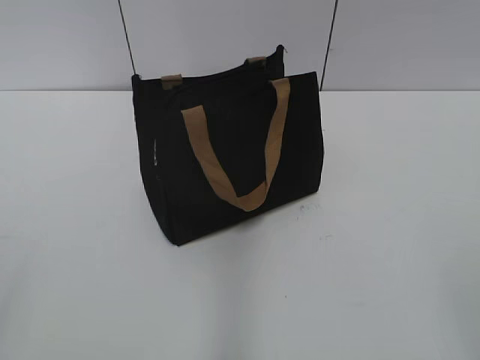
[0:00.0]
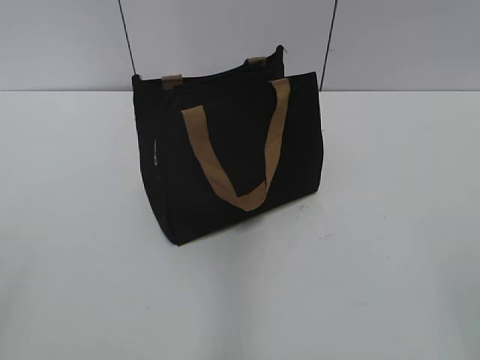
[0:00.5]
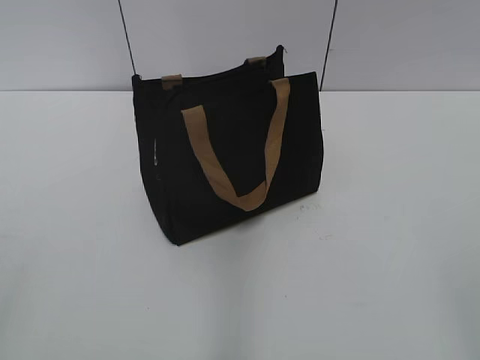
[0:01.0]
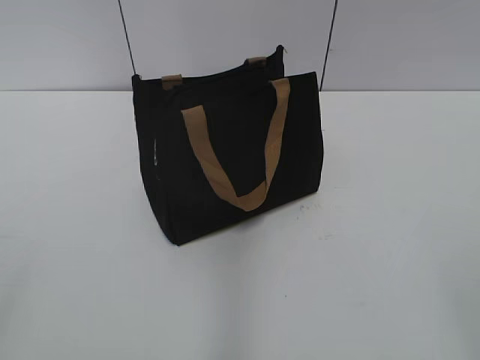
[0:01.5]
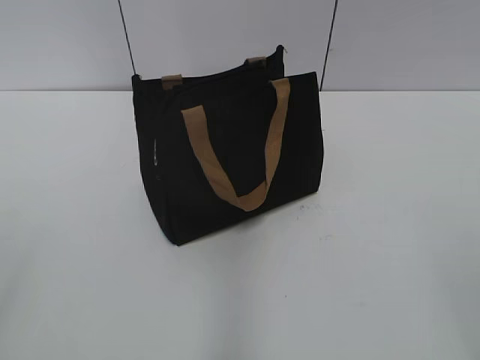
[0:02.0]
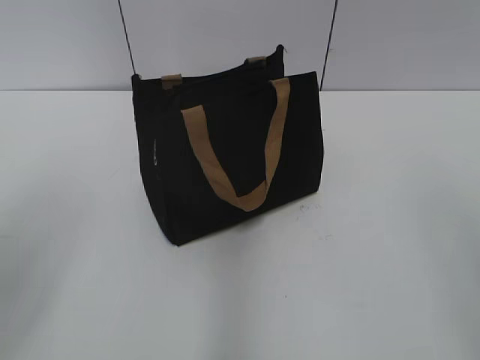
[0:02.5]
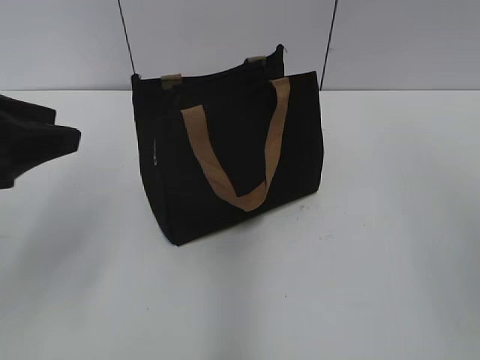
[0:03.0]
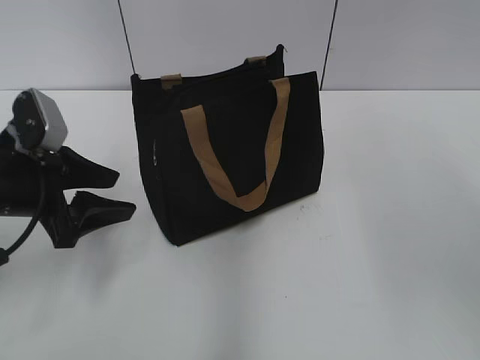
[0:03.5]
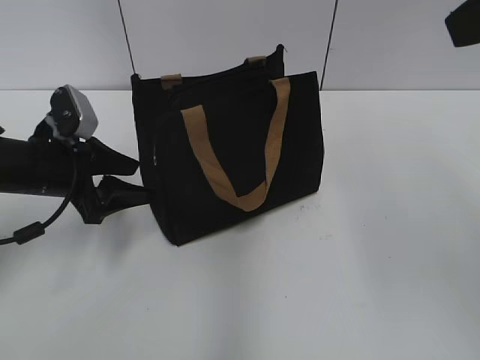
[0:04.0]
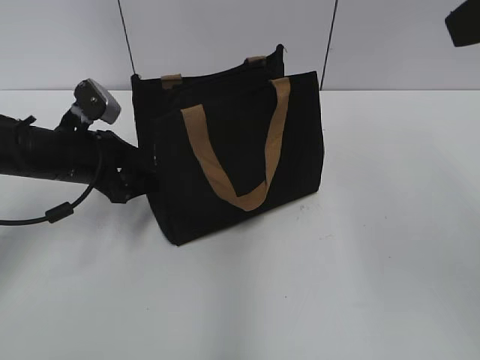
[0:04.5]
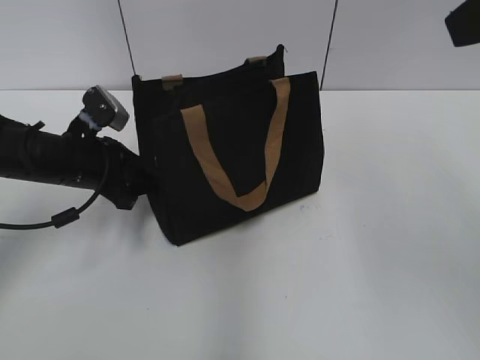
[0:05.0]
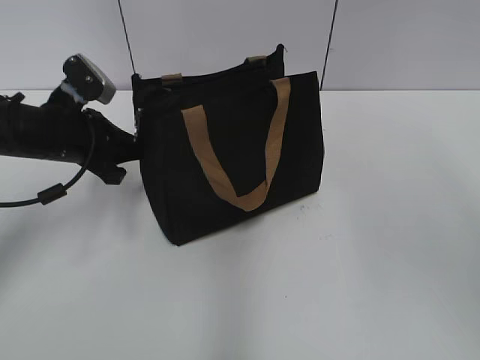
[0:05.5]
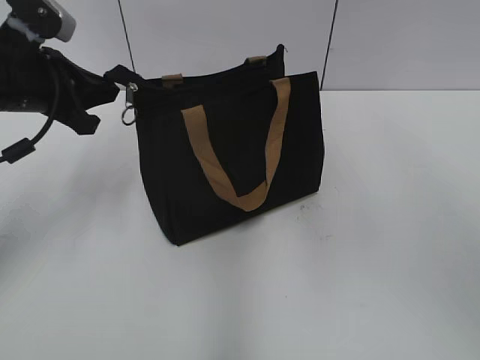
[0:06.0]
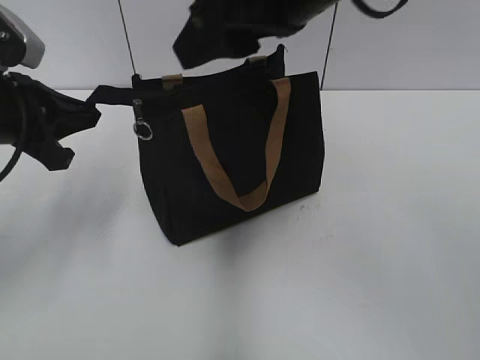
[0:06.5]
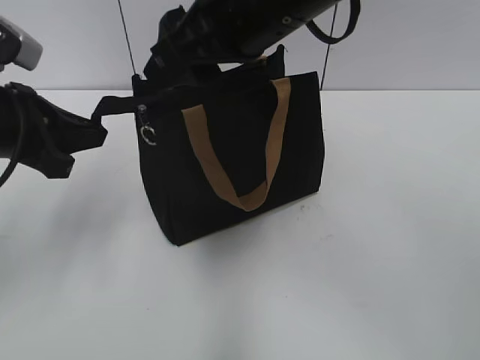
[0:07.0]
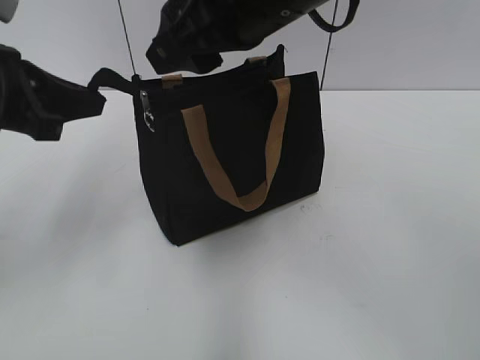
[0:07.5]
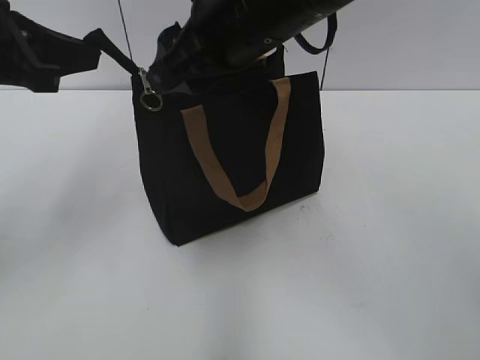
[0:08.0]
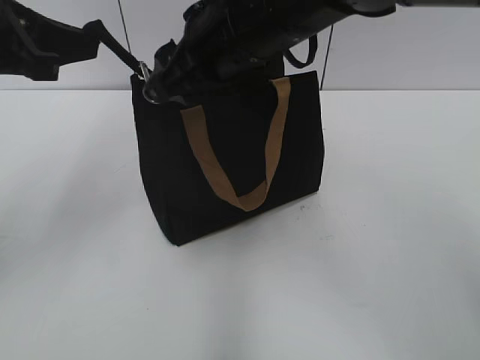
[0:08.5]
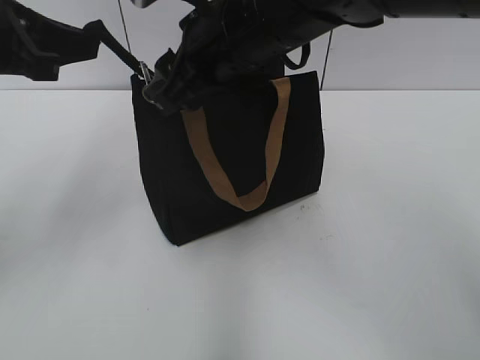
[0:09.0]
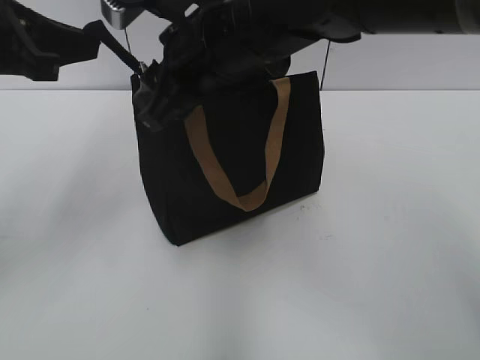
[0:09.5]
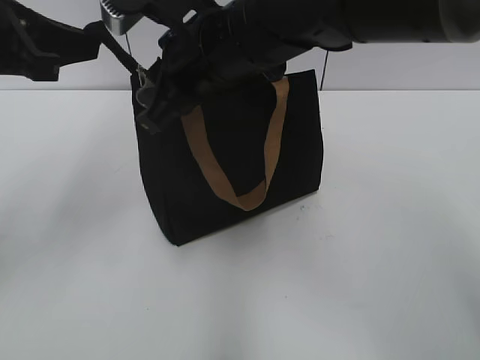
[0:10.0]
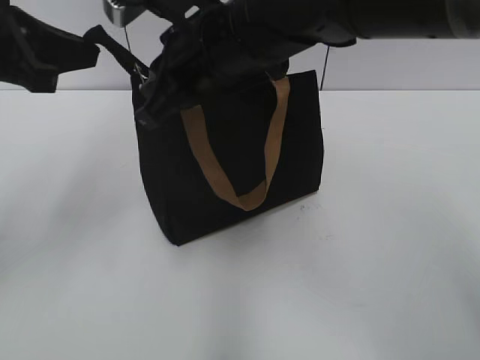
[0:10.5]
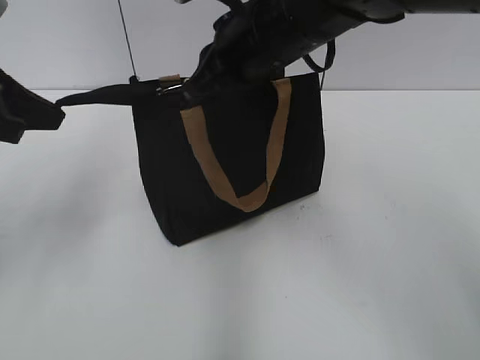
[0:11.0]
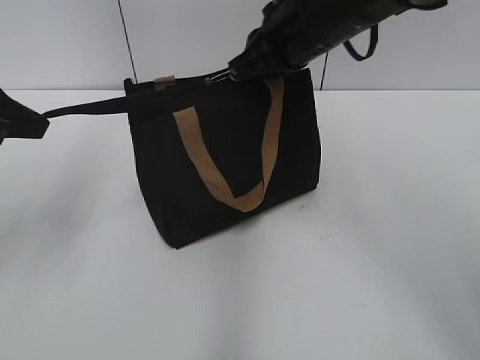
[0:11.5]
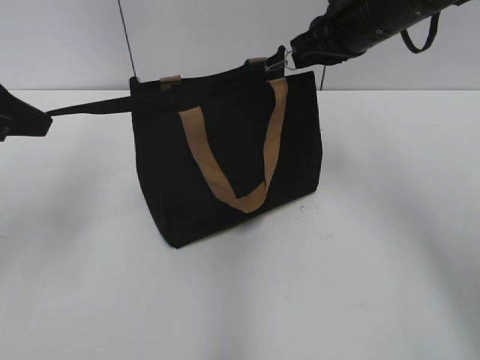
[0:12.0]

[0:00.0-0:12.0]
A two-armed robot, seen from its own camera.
0:02.0 to 0:04.0: The right gripper moves forward and upward, about 25 cm; the left gripper goes approximately 35 cm forward and downward.
0:04.0 to 0:06.0: The left gripper shifts about 10 cm upward, and closes its fingers, while the right gripper heads to the left, covering some 5 cm.
0:06.0 to 0:08.0: The right gripper heads to the left, downward and forward, covering some 20 cm; the left gripper shifts approximately 10 cm upward and backward.
0:08.0 to 0:10.0: The right gripper ends up about 5 cm from where it was, and closes.
0:10.0 to 0:12.0: The left gripper shifts by about 5 cm. Meanwhile the right gripper heads to the right and forward, covering some 20 cm.

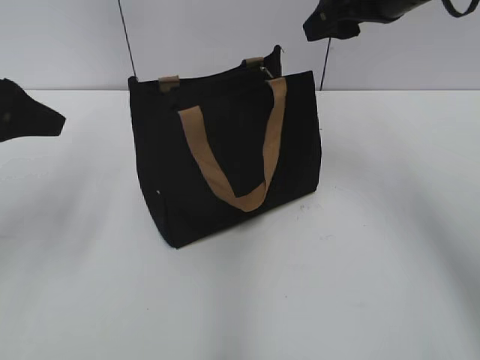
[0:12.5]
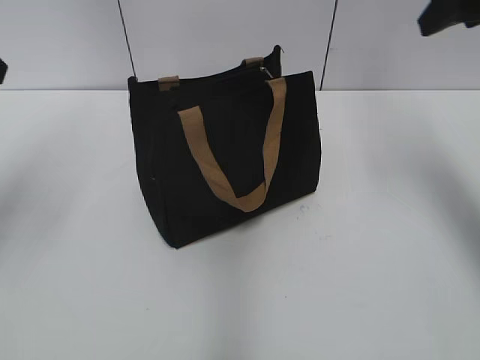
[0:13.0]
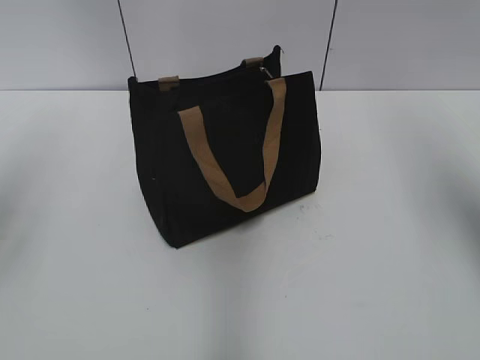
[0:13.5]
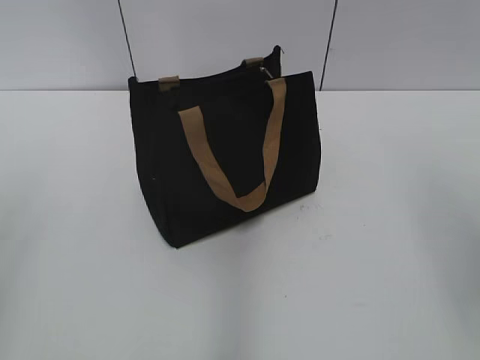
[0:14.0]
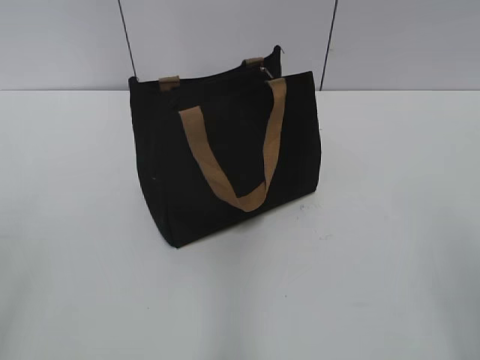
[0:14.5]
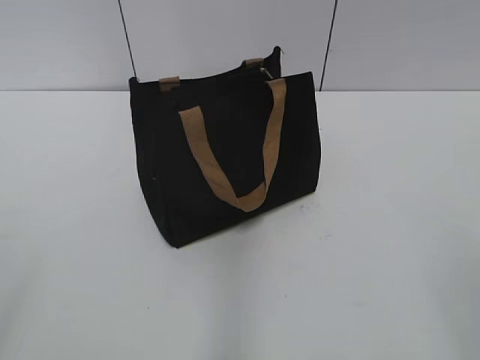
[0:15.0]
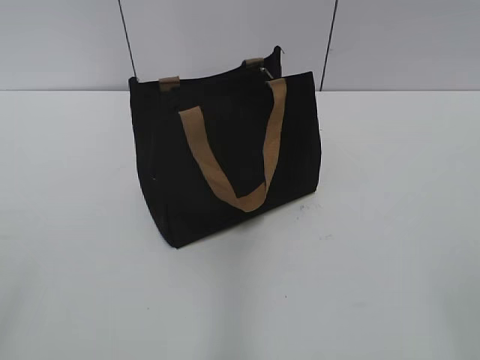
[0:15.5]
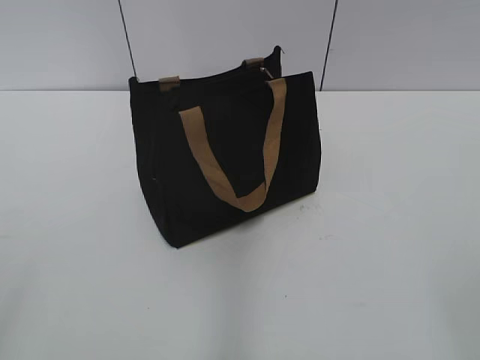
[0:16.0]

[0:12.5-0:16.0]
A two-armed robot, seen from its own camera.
0:12.5 to 0:14.5: The left gripper is displaced backward by about 20 cm, while the right gripper moves backward, about 30 cm.
